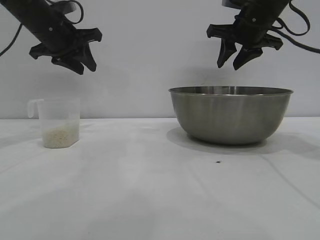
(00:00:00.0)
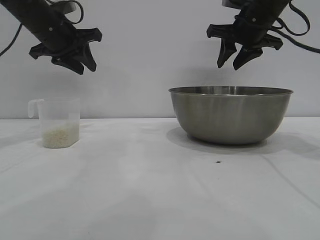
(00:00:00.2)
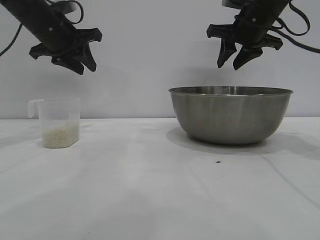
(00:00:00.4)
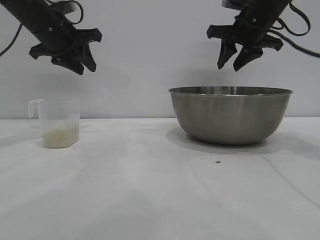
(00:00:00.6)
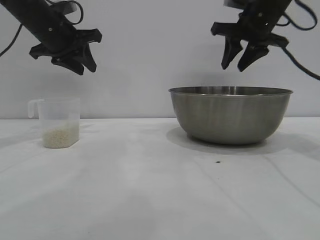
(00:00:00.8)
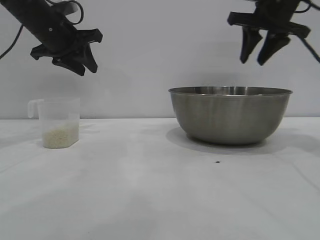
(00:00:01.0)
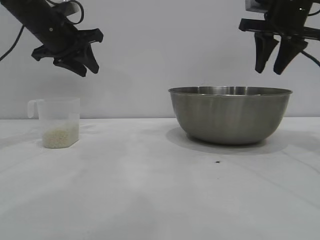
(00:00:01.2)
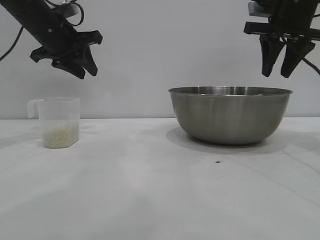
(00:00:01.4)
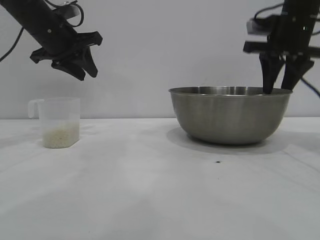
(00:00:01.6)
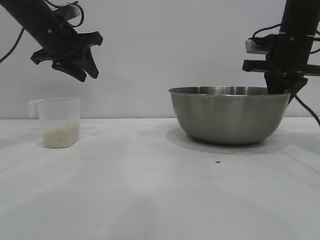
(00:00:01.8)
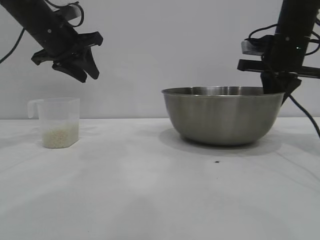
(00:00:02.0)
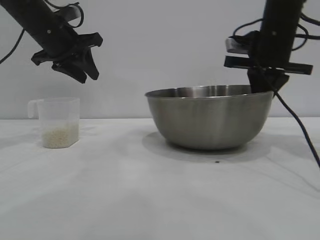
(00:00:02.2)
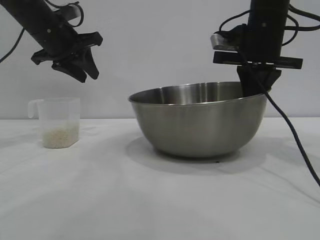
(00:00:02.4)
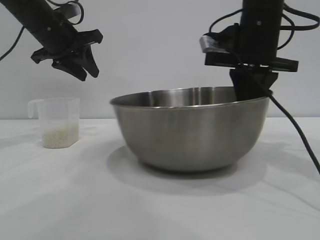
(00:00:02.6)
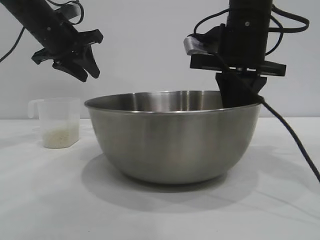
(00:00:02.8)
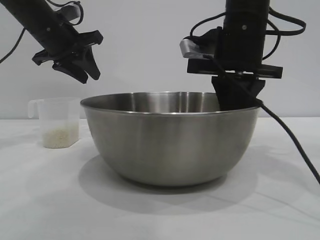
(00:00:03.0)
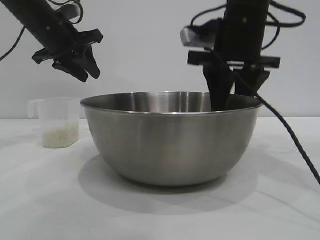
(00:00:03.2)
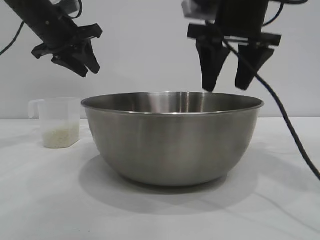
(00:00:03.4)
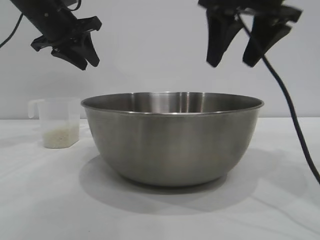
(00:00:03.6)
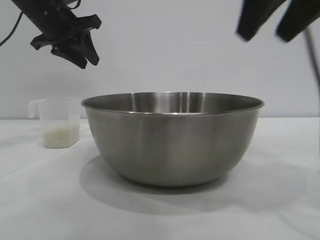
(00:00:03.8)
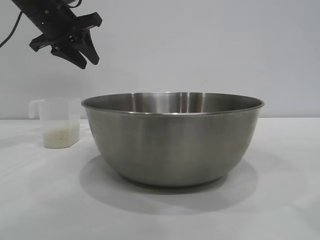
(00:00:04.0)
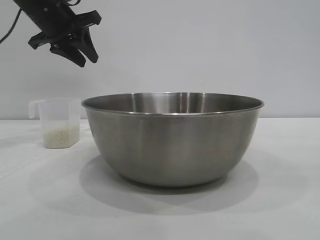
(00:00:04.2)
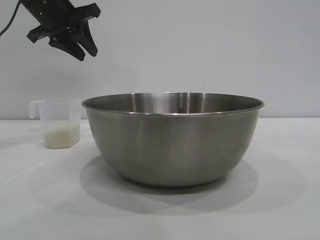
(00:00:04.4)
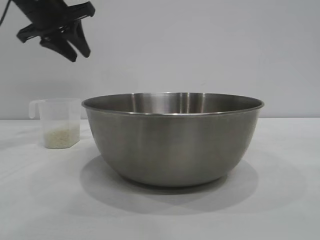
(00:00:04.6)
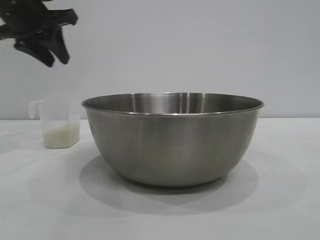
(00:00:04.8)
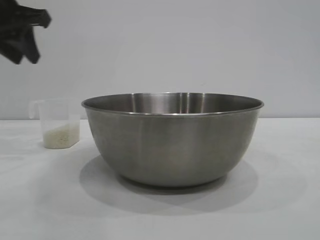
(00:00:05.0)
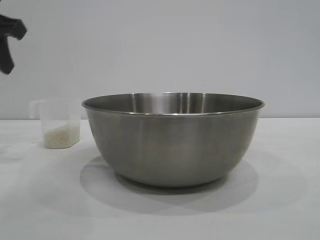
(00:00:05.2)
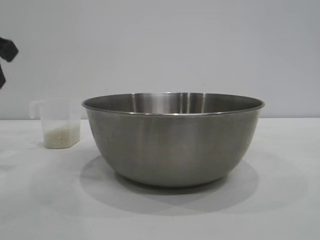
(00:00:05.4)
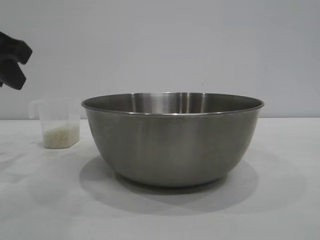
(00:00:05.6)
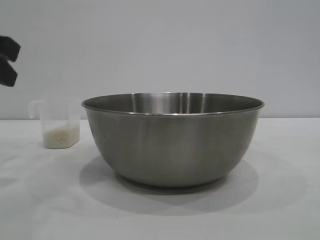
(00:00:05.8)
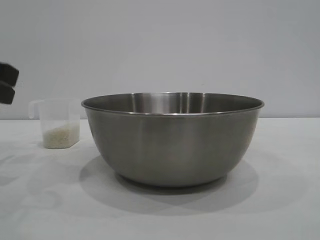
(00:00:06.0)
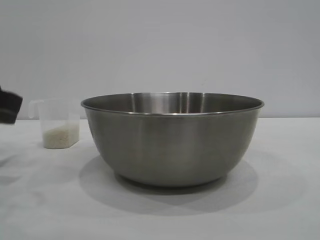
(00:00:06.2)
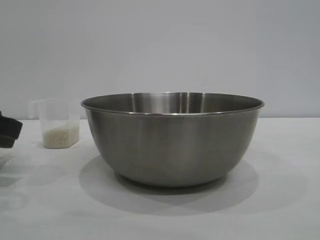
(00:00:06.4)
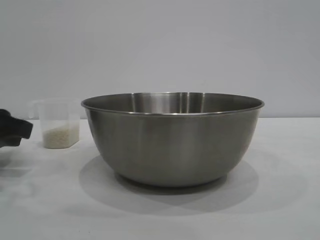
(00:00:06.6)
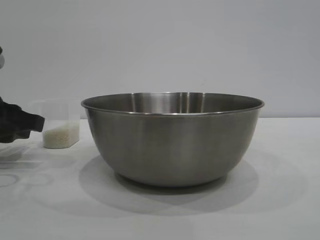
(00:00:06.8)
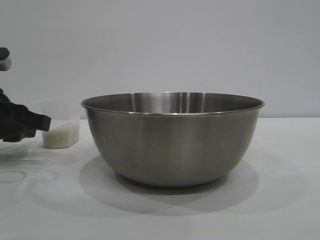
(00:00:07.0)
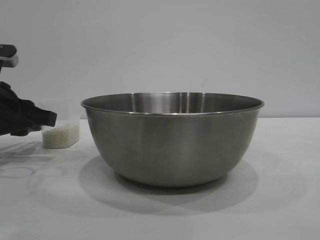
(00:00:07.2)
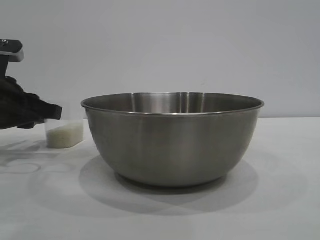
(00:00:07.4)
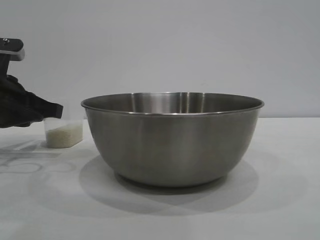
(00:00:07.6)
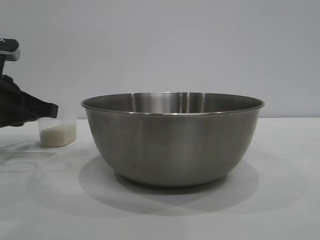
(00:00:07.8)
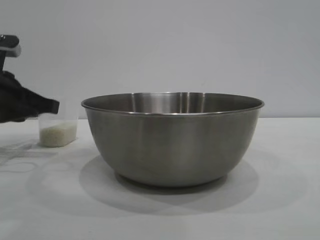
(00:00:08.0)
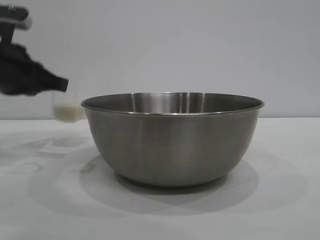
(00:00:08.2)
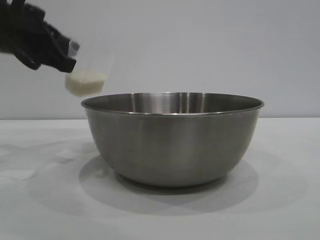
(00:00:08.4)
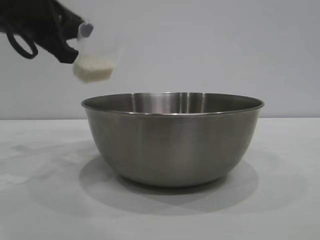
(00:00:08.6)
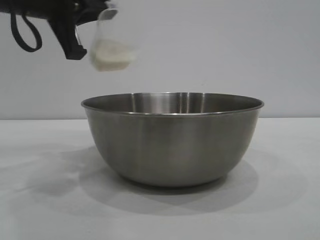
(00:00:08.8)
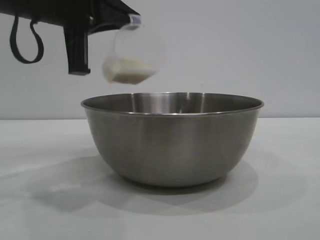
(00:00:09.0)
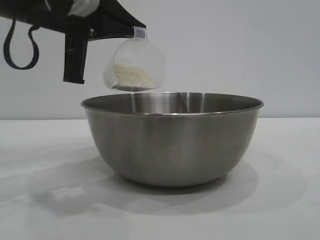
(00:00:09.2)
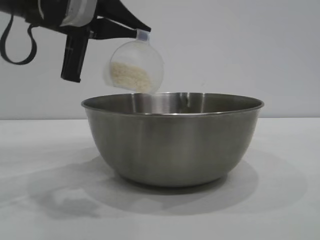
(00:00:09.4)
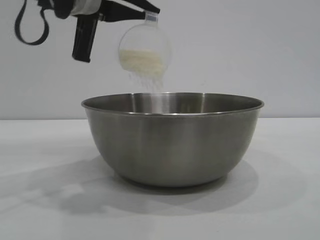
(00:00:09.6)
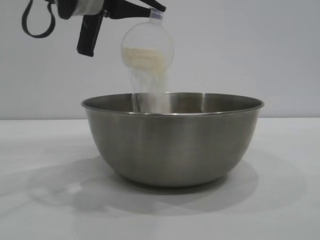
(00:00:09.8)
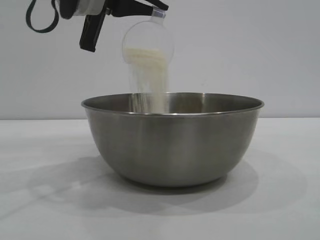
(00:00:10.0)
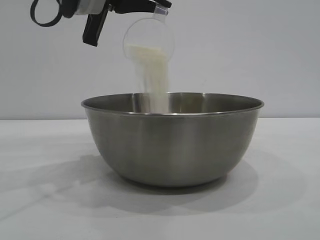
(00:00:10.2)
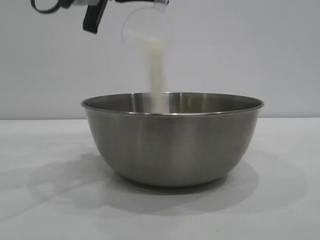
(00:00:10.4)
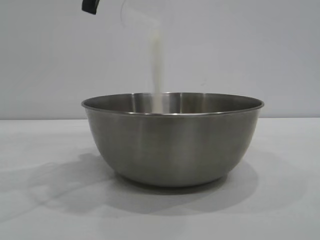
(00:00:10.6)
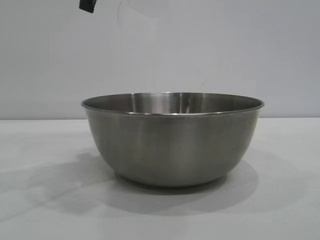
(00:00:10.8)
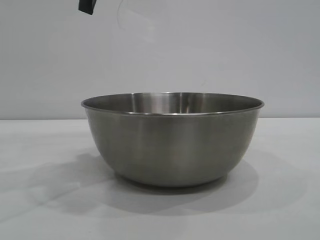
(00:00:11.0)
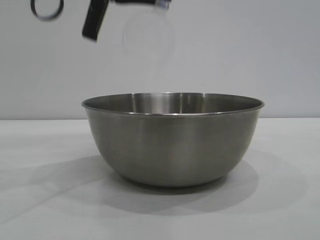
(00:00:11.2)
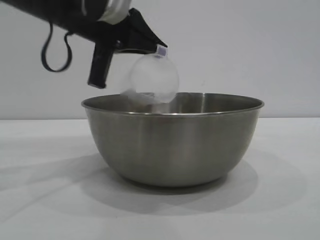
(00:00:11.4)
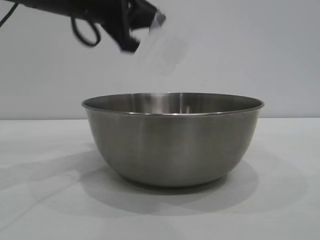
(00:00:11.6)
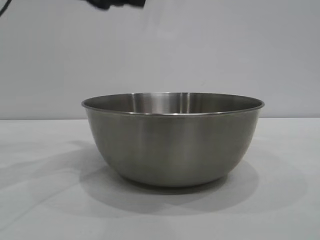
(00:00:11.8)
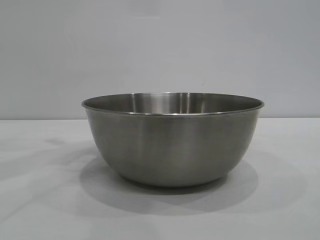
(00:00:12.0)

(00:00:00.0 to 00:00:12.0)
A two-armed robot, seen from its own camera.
Task of the whole recording: the right gripper grasp the rice container and place it in the center of the table, the left gripper grasp the rice scoop and pour the rice into the rice container.
Step, 00:00:00.0 - 00:00:03.6: Move the bowl to the center of view with the right gripper.
Step, 00:00:03.8 - 00:00:08.2: Pick up the cup with rice in it with the left gripper.
Step, 00:00:08.6 - 00:00:10.8: Pour the rice from the cup into the bowl with the left gripper.

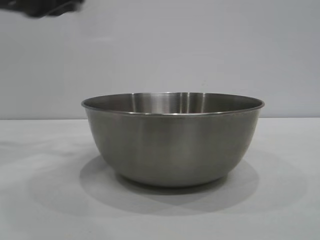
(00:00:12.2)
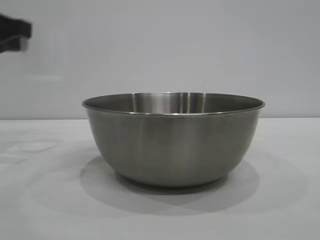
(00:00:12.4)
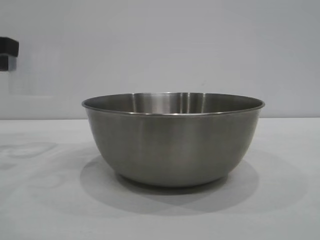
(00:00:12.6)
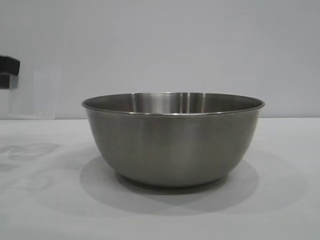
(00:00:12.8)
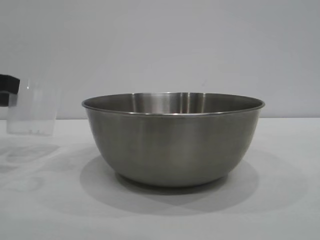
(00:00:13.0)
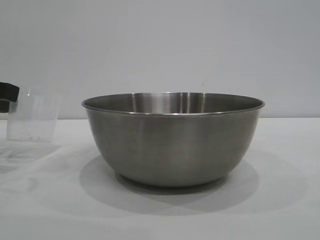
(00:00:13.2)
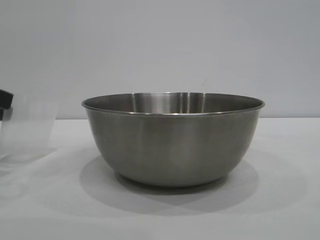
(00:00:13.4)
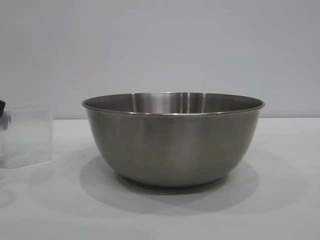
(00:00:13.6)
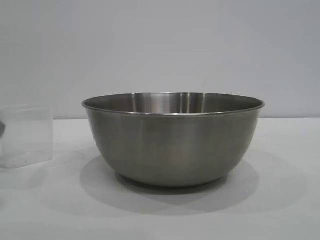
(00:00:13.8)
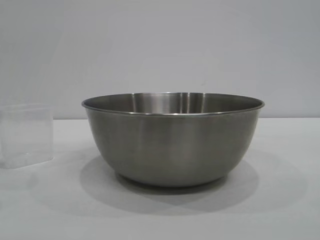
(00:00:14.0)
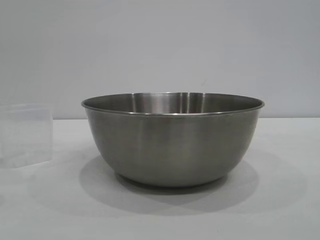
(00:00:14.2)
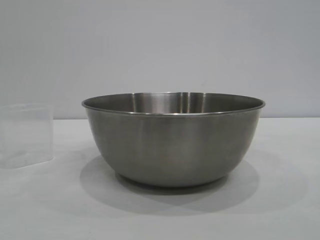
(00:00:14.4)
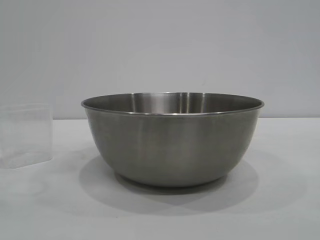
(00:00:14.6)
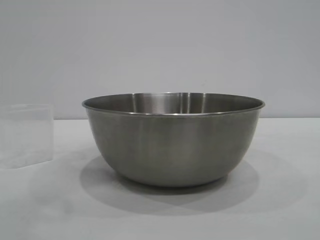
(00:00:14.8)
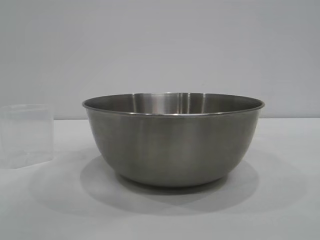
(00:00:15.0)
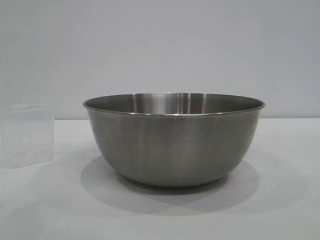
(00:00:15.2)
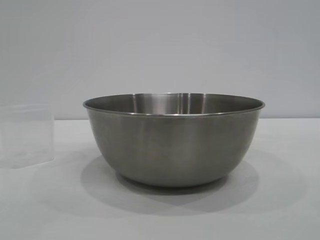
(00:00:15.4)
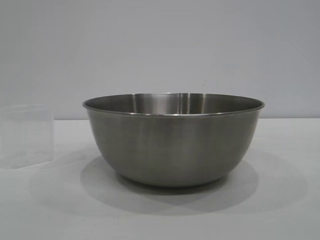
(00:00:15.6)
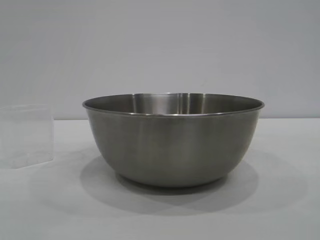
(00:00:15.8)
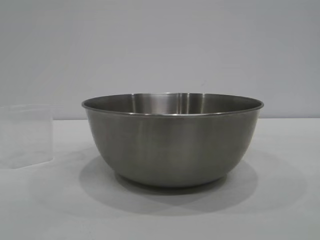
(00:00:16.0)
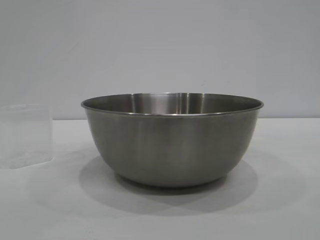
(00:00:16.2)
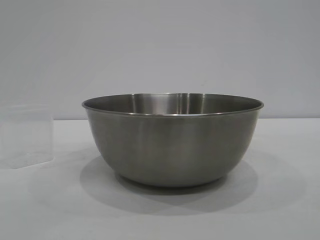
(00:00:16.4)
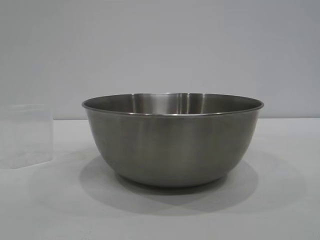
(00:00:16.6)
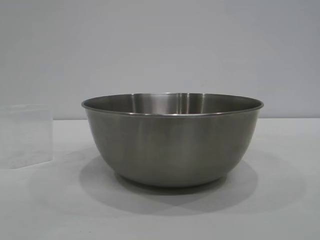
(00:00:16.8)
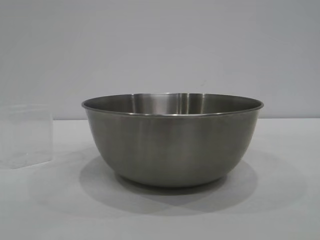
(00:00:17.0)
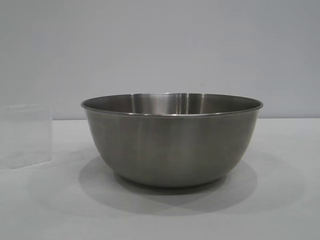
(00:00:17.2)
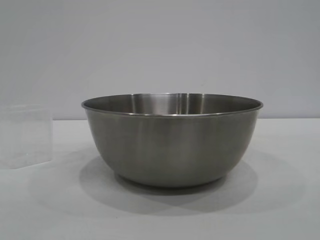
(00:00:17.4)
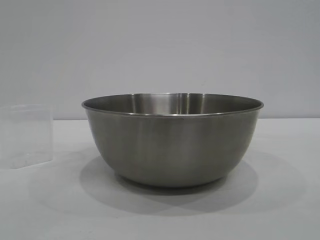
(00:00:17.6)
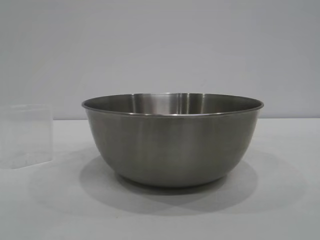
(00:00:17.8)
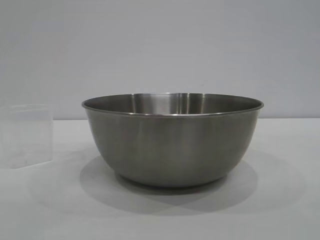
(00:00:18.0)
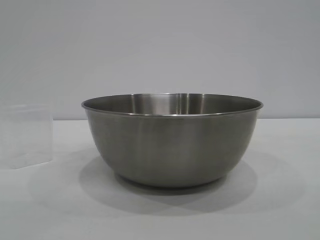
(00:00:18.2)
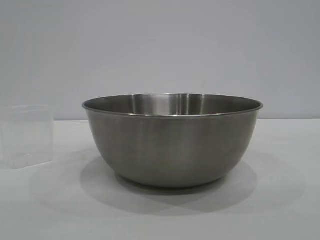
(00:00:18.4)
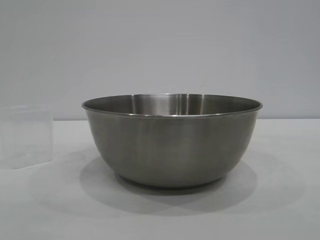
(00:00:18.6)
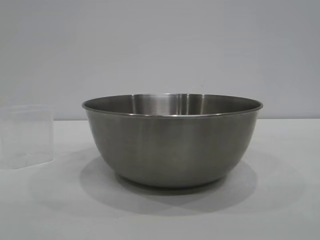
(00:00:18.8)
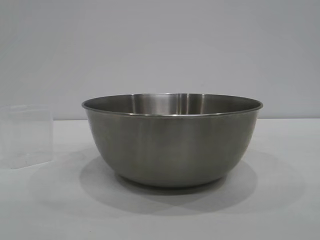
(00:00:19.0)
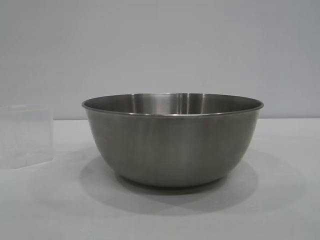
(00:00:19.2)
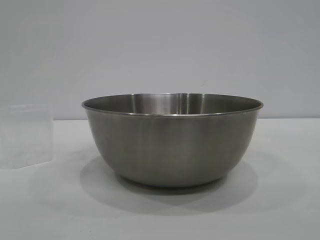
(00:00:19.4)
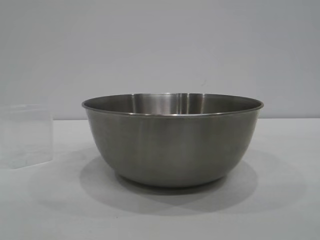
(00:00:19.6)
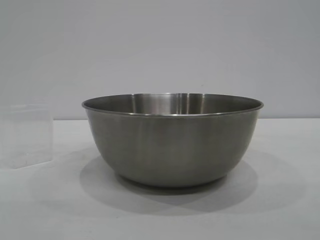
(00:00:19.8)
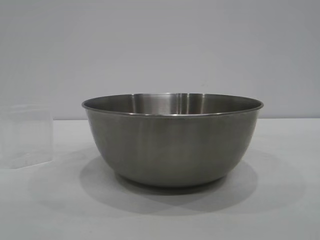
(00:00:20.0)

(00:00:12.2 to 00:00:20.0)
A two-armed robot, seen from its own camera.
Task of the whole recording: the right gripper grasp the rice container and place it in the center of the table, the left gripper grasp the rice scoop and pour the rice into the rice container.
Step, 00:00:12.2 - 00:00:14.4: Place the cup on the table with the left gripper.
